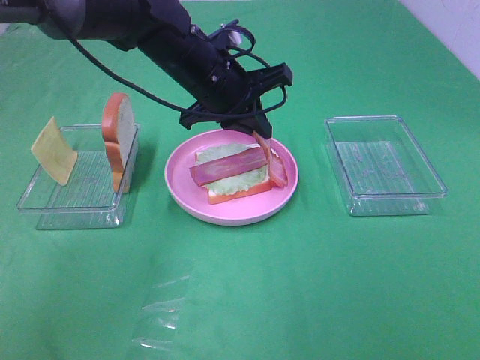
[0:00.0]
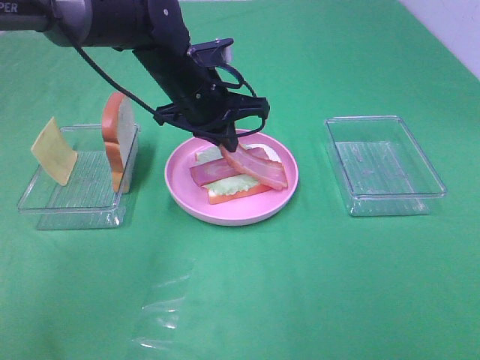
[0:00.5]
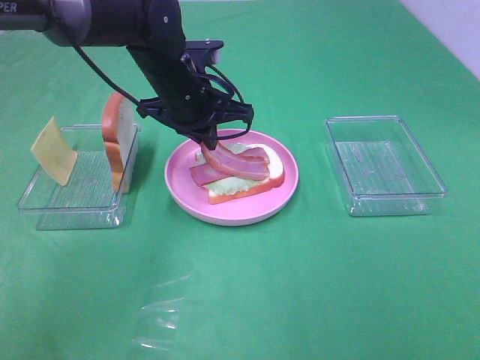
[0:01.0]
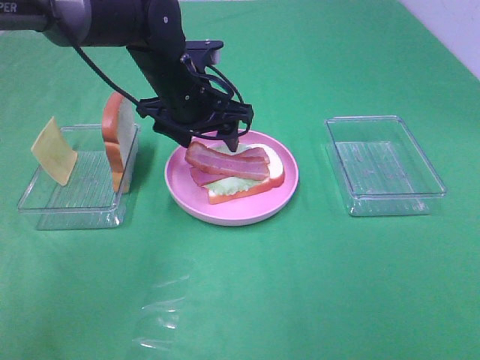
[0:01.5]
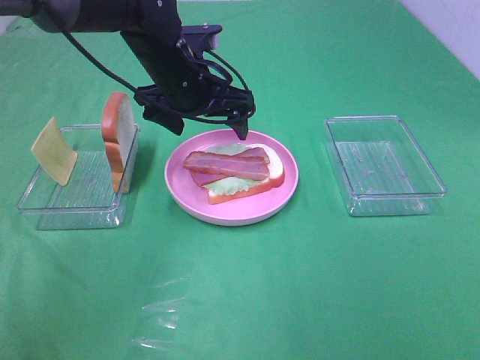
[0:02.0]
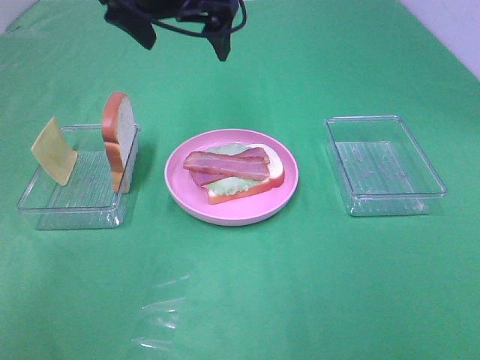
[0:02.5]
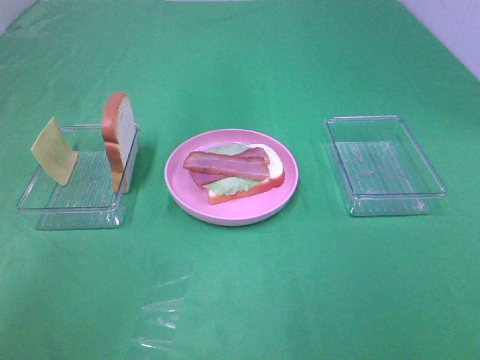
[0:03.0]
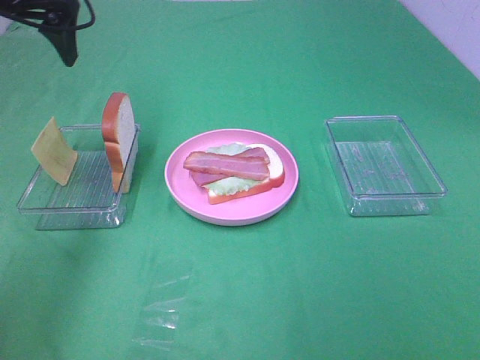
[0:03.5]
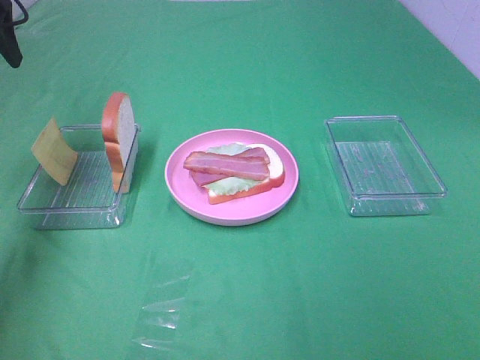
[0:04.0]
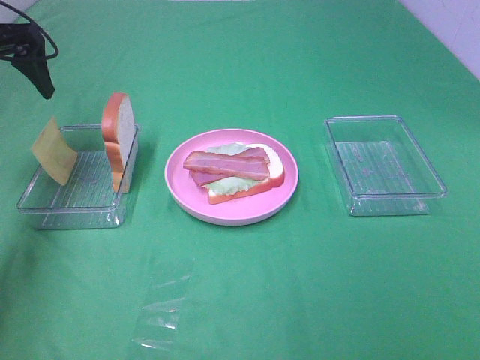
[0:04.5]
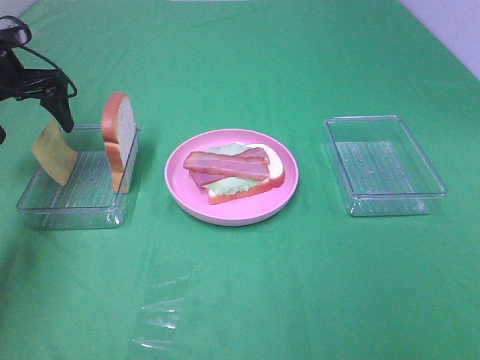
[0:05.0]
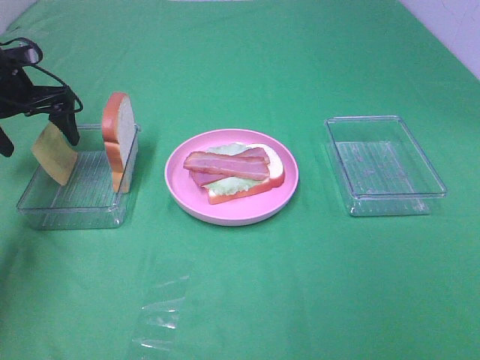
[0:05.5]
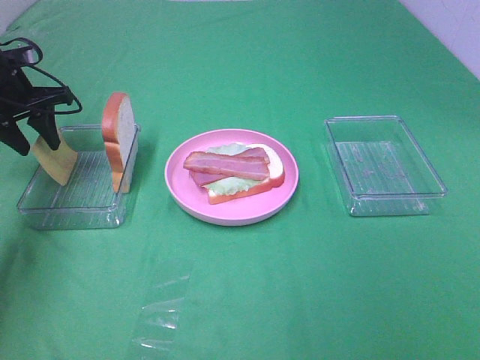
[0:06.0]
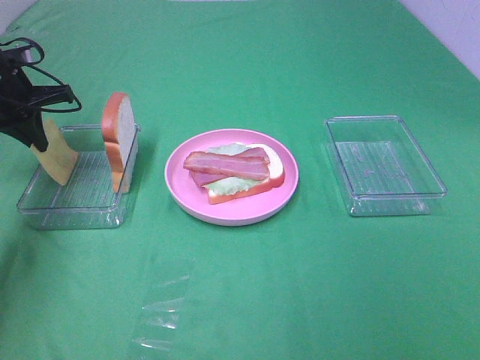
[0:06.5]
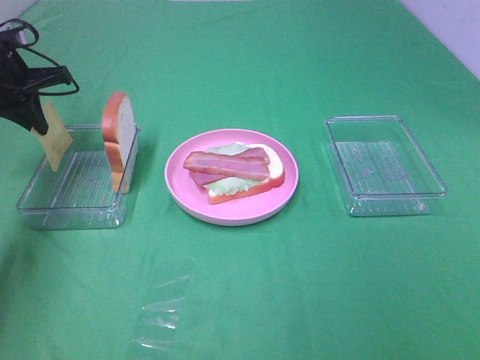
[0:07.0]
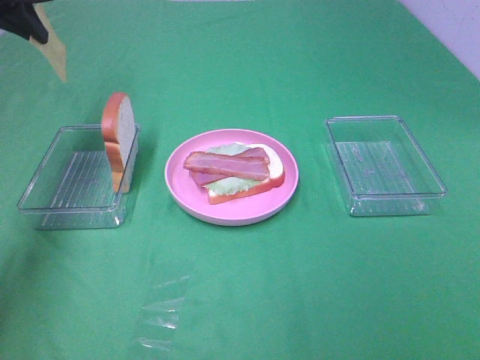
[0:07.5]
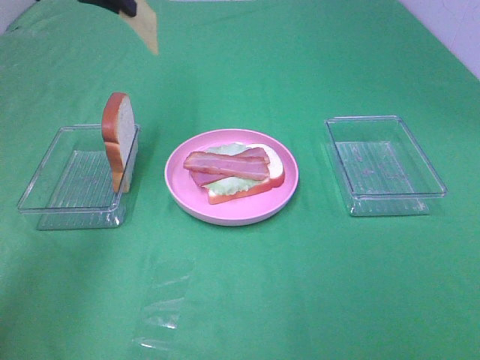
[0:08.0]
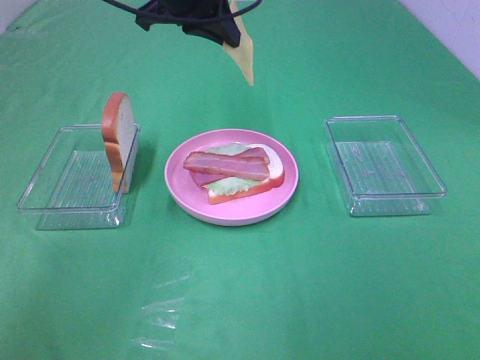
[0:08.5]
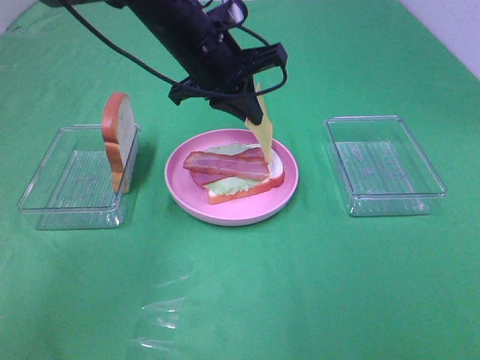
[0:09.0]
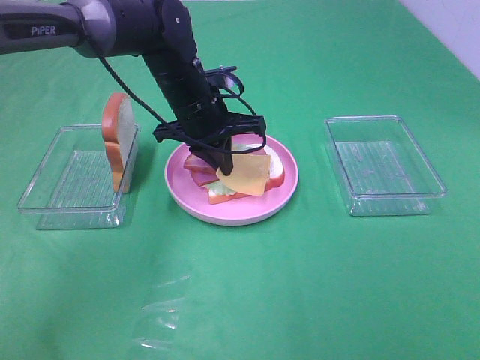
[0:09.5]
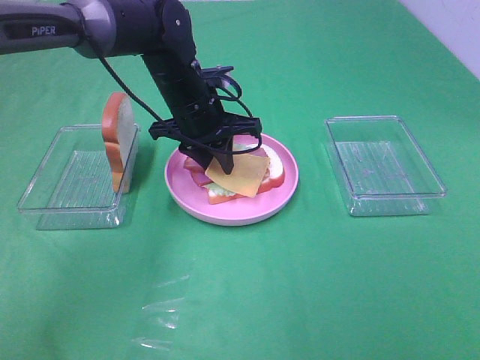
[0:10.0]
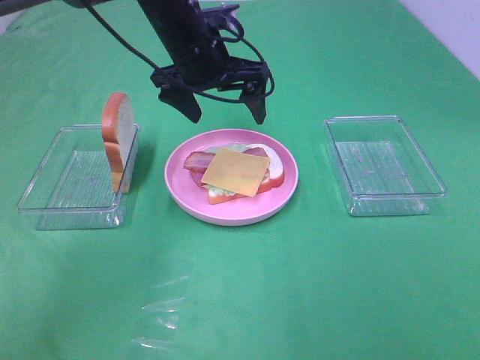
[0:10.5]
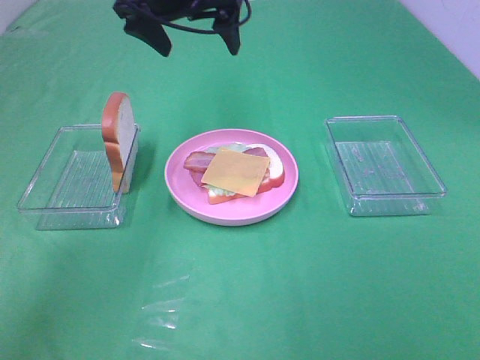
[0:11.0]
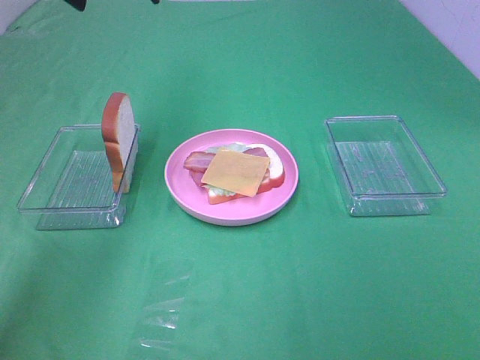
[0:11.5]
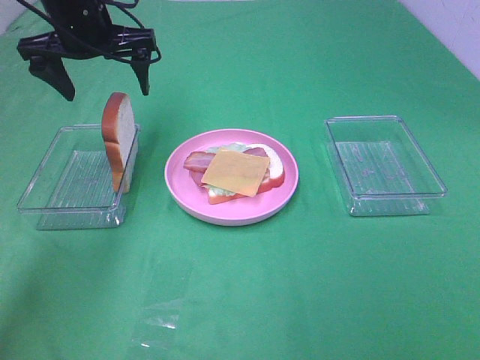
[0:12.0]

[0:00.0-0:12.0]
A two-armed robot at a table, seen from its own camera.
Task of the whole recording: Make sandwiches.
Step, 0:02.0 to 0:06.0: Left hand:grab the cheese slice.
Step, 0:06.5 to 0:10.0: Left hand:place the cheese slice on top of the bacon.
0:00.0 to 0:02.0: The left gripper opens its fingers.
0:02.0 to 0:04.0: The left gripper shifts some 30 cm to the left and upward.
0:04.0 to 0:06.0: The left gripper goes roughly 15 cm downward, and closes.
0:06.0 to 0:08.0: The left gripper travels upward and to the right by roughly 20 cm, and closes up.
0:08.0 to 0:10.0: The left gripper moves downward and to the right, about 20 cm.
0:10.0 to 0:12.0: The left gripper heads to the left and upward, covering roughly 15 cm, and opens up.

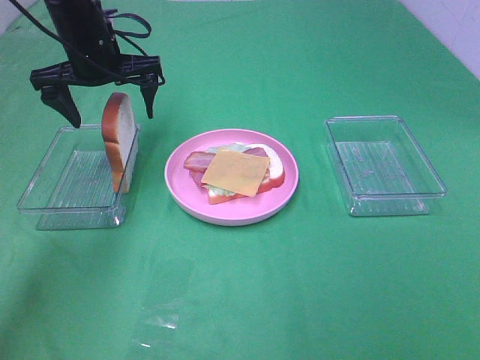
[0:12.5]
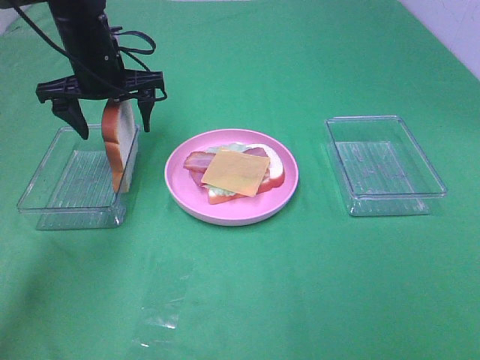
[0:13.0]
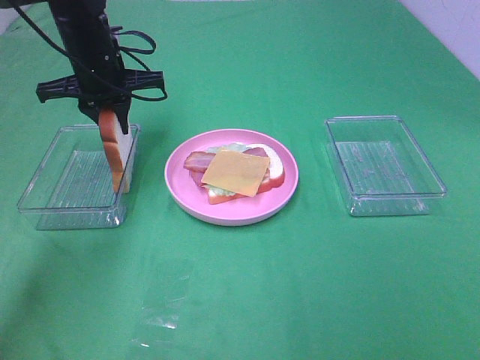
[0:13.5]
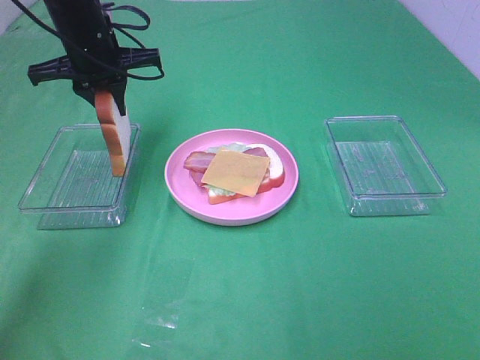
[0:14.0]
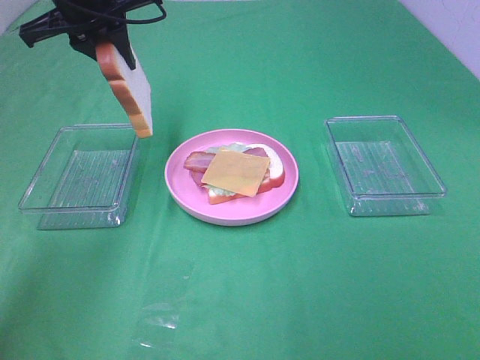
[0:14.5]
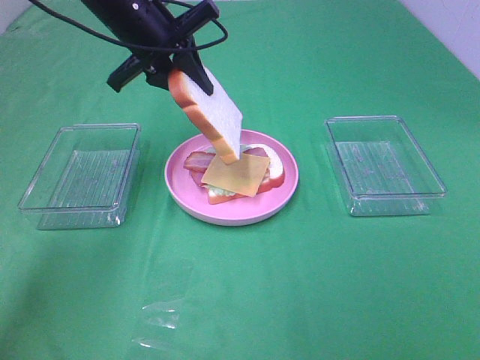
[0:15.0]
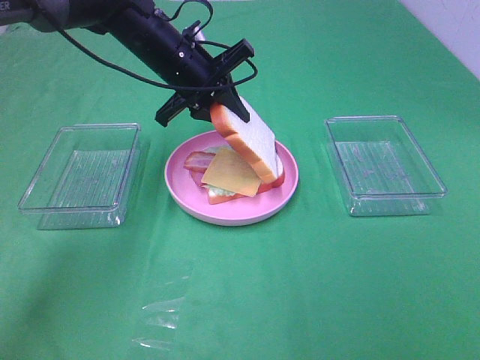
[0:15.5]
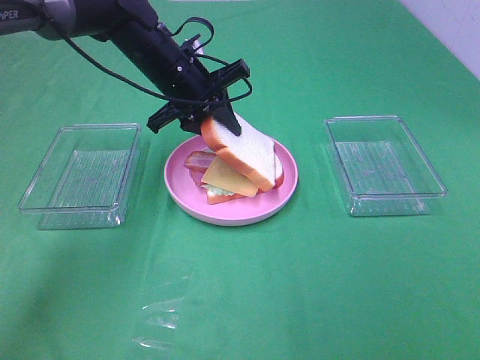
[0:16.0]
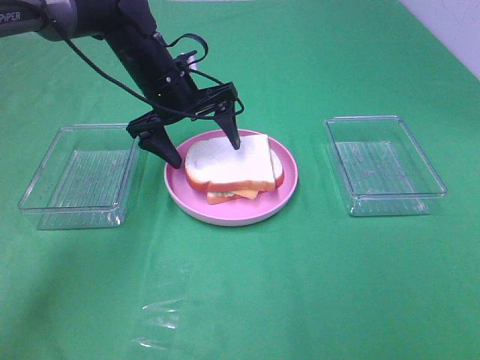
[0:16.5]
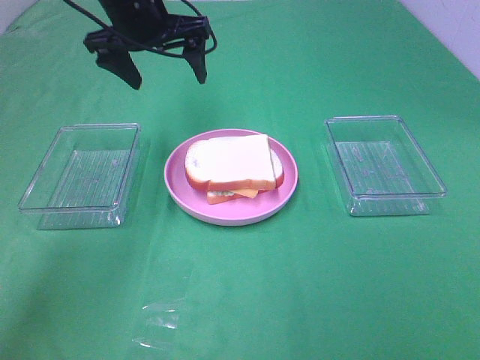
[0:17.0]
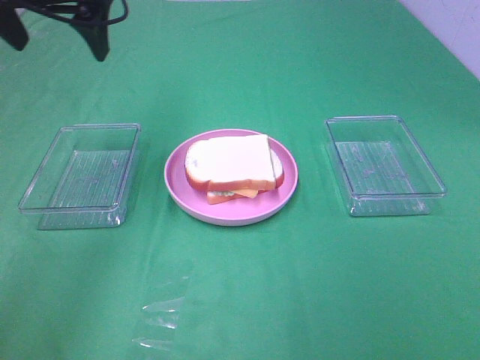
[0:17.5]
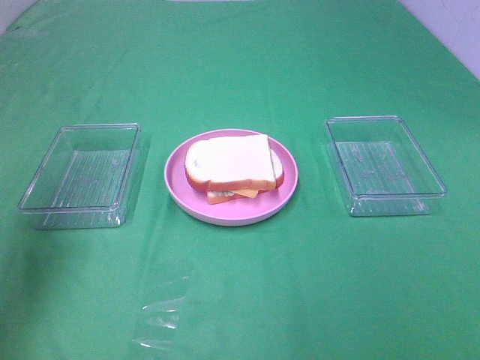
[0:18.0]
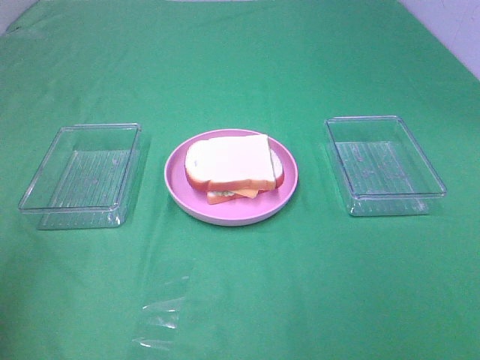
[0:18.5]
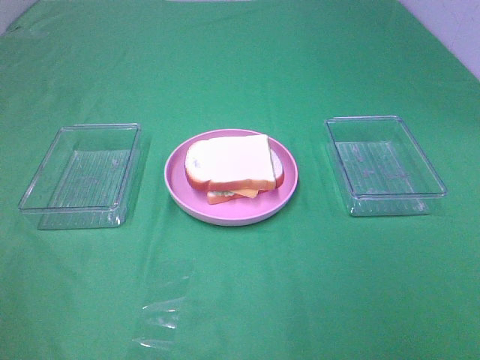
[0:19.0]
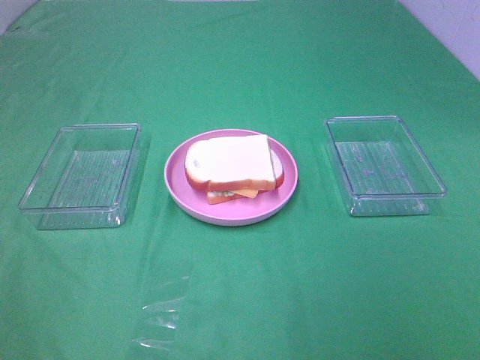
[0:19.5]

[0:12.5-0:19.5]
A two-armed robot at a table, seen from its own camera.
Task of the whole recording: Make sandwiches.
Step, 0:13.5 to 0:16.5: Left hand:place the bread slice on the cheese slice.
0:12.5 to 0:14.5: The left gripper is displaced upward by some 10 cm, and closes up.
0:14.5 to 0:16.0: The left gripper moves downward and to the right, roughly 15 cm.
0:16.0 to 0:17.5: The left gripper travels upward, to the left and backward by about 20 cm, and opens its fingers.
0:17.5 to 0:19.5: The left gripper moves backward, approximately 40 cm.

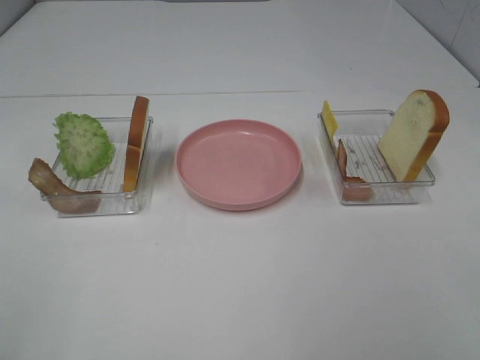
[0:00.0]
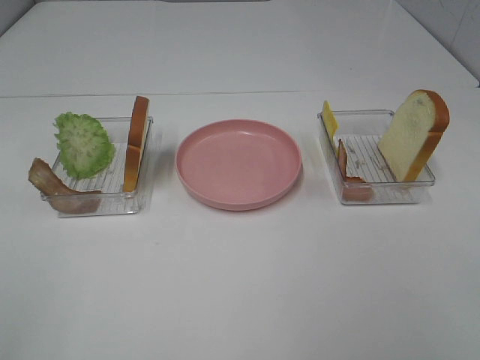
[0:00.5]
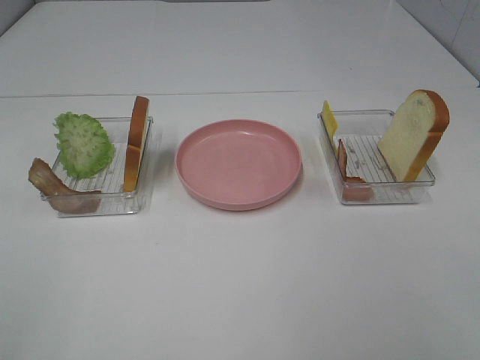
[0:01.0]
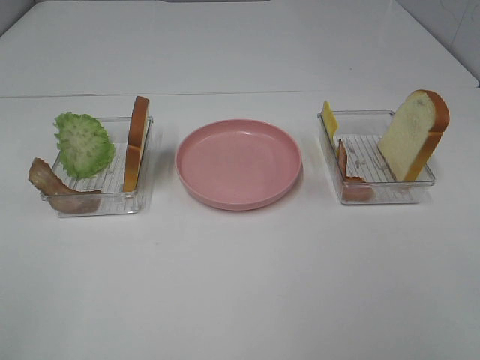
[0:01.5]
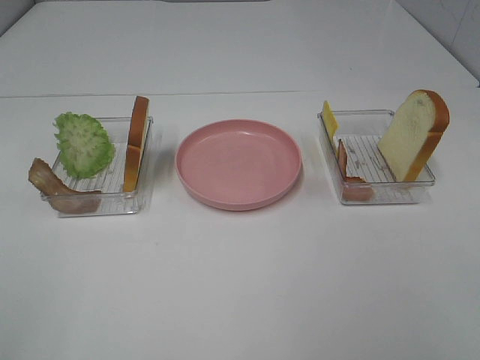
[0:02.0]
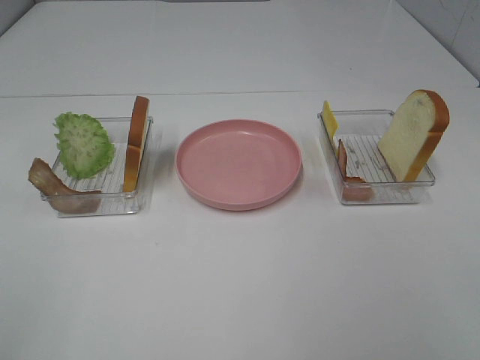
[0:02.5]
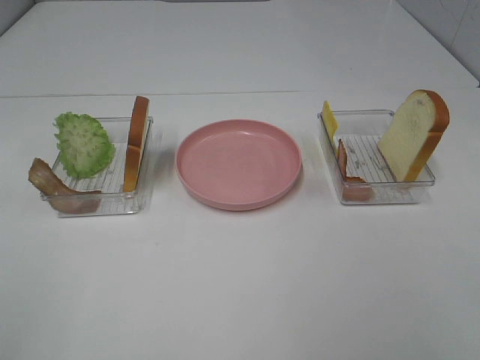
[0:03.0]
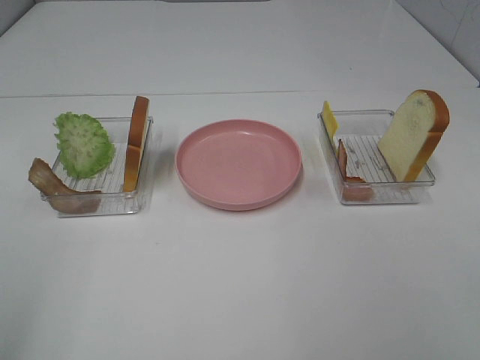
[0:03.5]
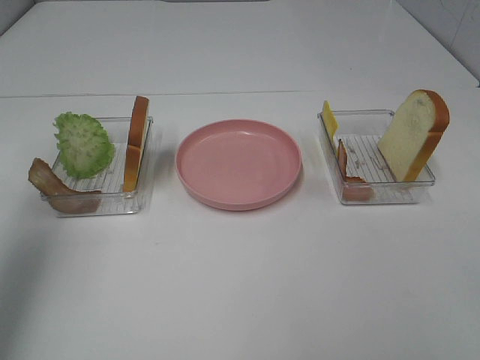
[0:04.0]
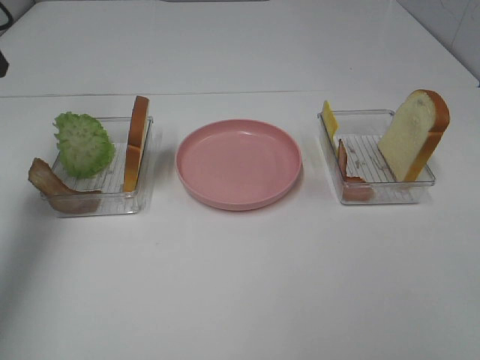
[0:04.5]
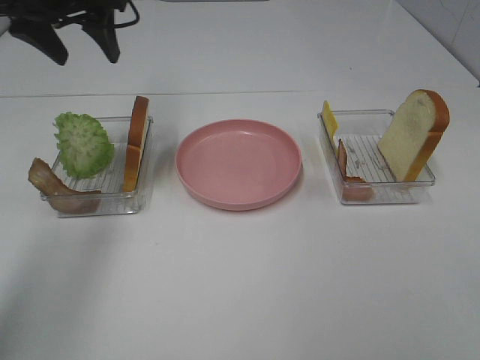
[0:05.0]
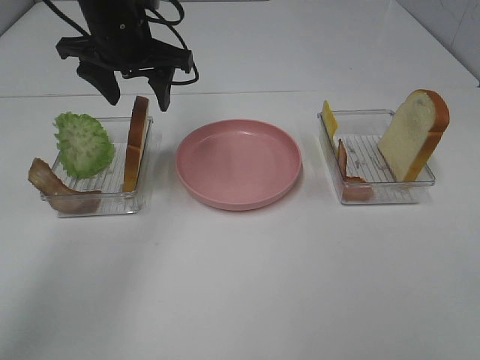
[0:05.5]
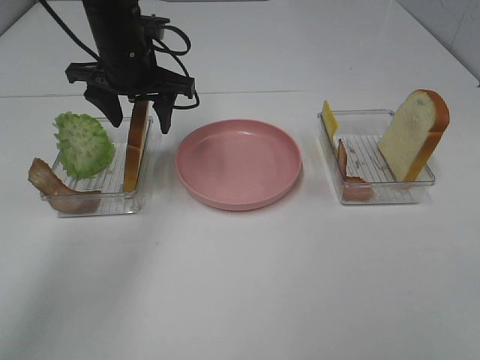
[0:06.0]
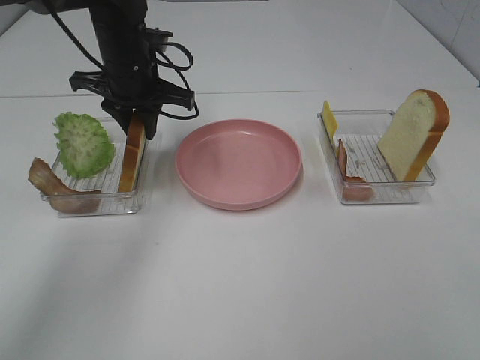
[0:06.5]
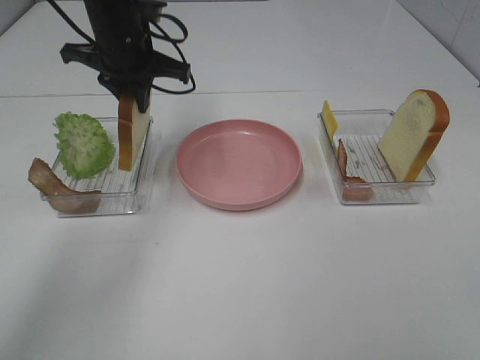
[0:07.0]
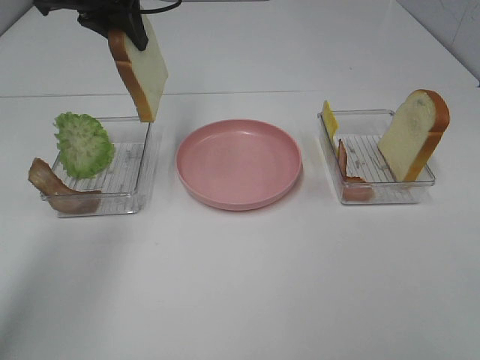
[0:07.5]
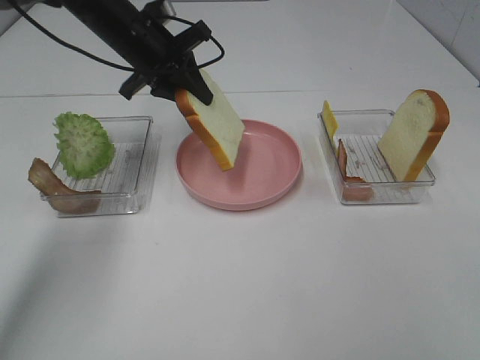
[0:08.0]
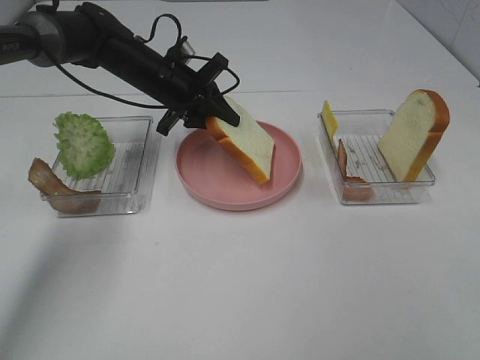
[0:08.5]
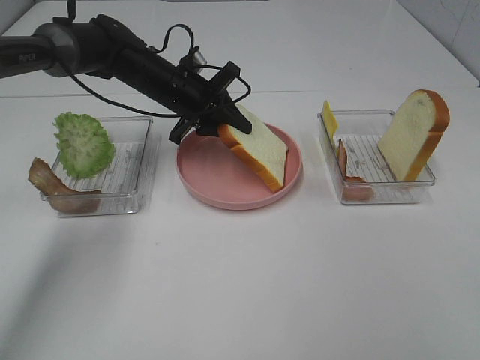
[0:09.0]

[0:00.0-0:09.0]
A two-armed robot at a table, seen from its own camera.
Task of the whole recording: Make sandwiches.
Step, 0:00.0 to 0:06.5: Left hand:grab the bread slice.
0:00.0 to 0:02.0: Both grippers stay put.
0:02.0 to 0:04.5: The left gripper goes some 35 cm forward.
0:04.5 to 0:07.0: The left gripper goes roughly 20 cm to the right, forward and downward, and closes.
0:07.0 to 0:09.0: The left gripper goes about 10 cm downward.
